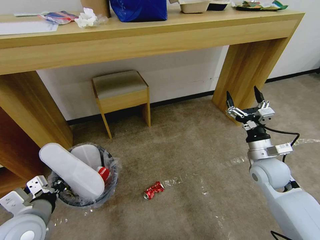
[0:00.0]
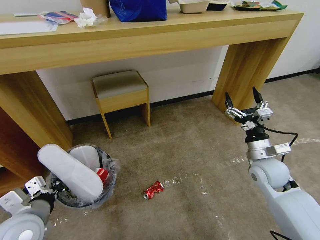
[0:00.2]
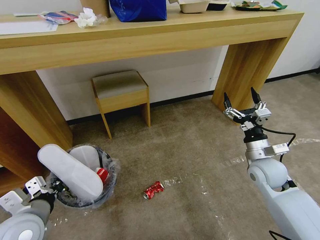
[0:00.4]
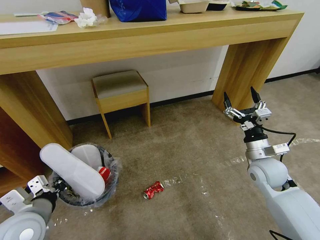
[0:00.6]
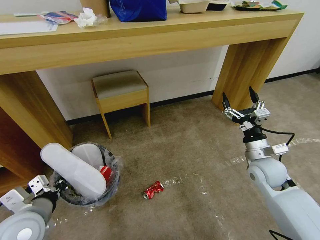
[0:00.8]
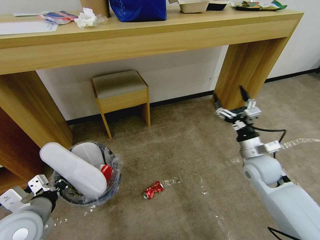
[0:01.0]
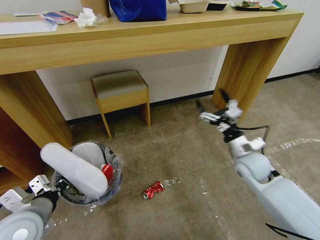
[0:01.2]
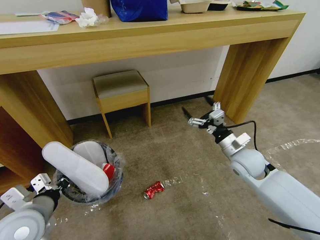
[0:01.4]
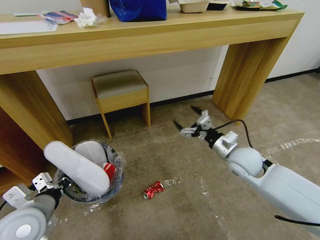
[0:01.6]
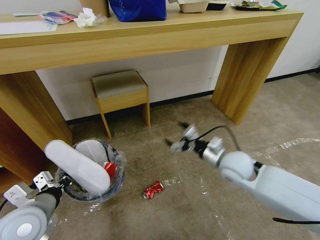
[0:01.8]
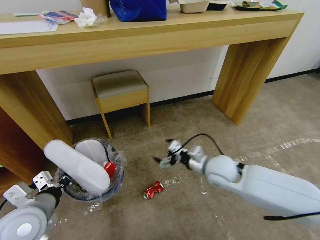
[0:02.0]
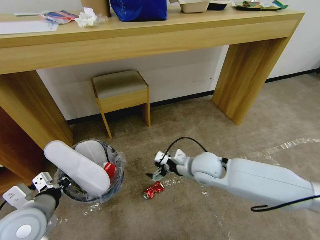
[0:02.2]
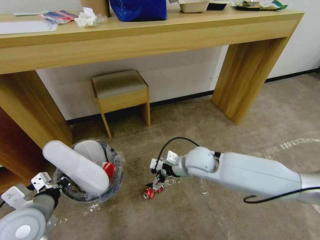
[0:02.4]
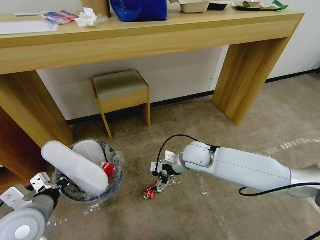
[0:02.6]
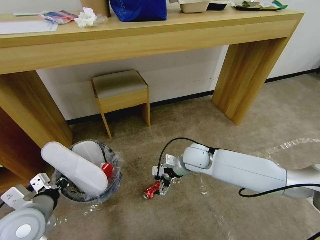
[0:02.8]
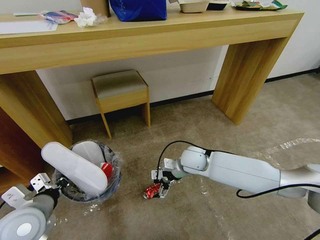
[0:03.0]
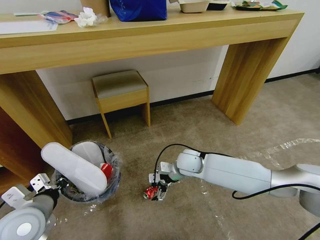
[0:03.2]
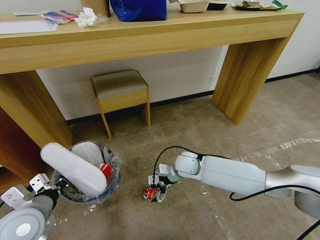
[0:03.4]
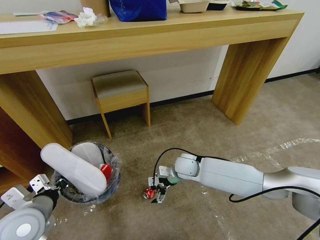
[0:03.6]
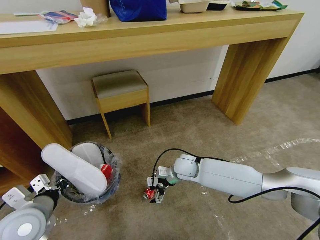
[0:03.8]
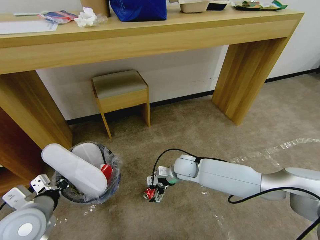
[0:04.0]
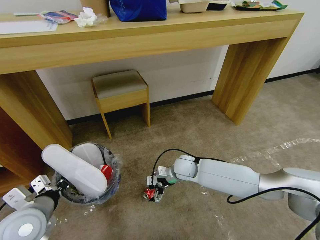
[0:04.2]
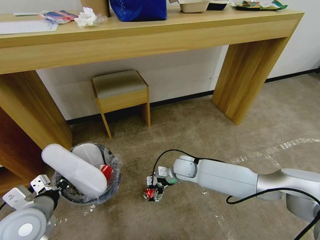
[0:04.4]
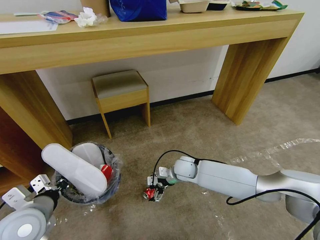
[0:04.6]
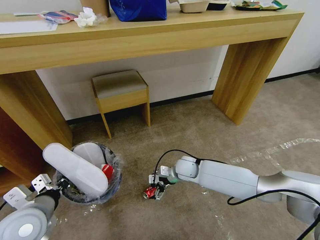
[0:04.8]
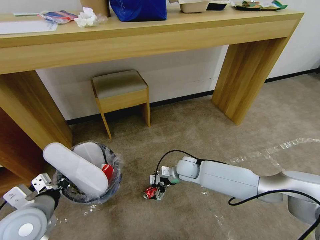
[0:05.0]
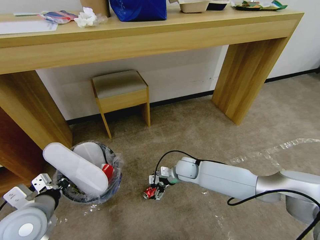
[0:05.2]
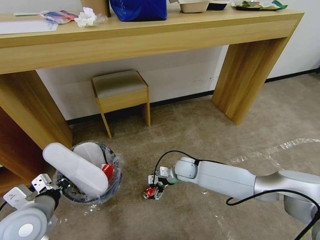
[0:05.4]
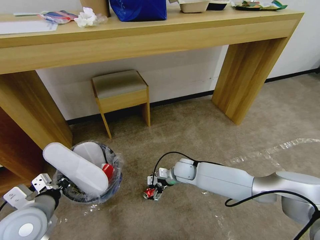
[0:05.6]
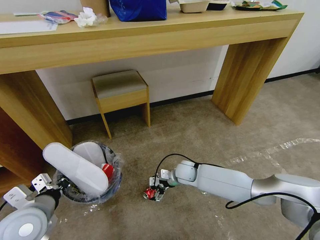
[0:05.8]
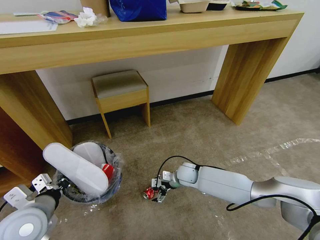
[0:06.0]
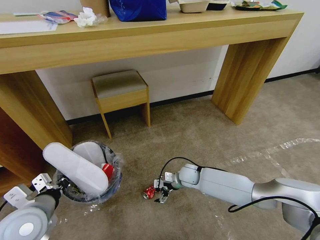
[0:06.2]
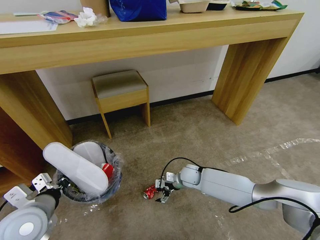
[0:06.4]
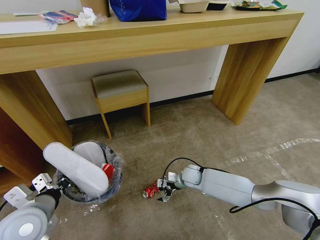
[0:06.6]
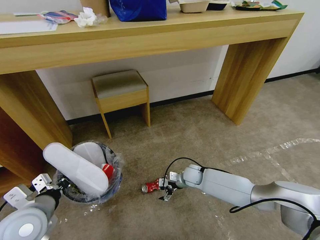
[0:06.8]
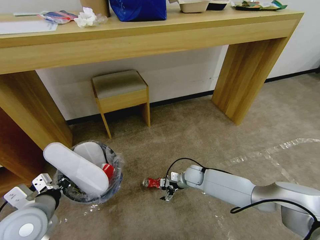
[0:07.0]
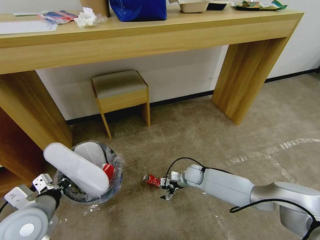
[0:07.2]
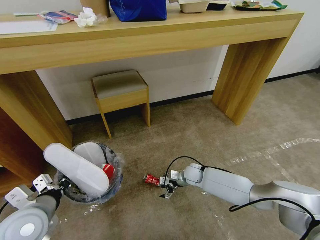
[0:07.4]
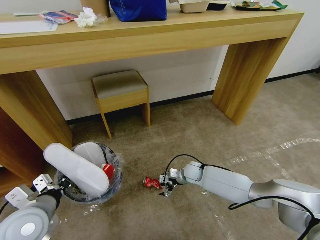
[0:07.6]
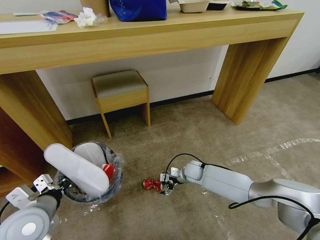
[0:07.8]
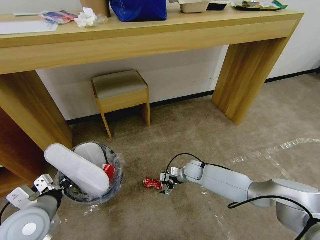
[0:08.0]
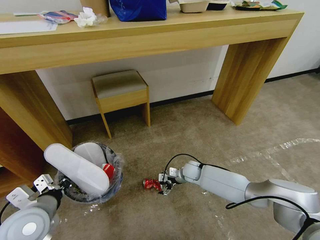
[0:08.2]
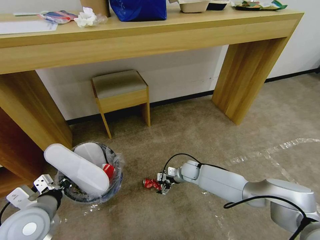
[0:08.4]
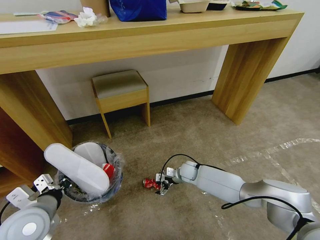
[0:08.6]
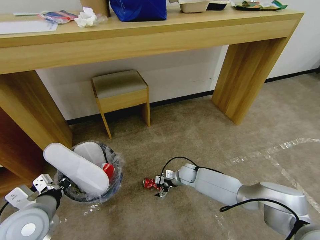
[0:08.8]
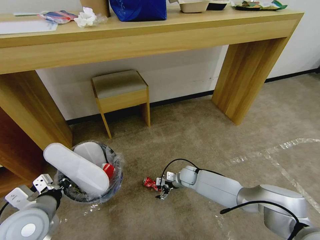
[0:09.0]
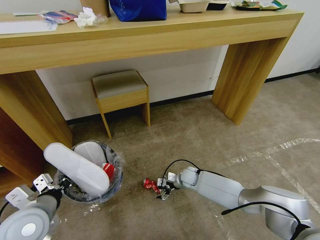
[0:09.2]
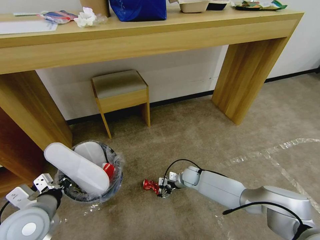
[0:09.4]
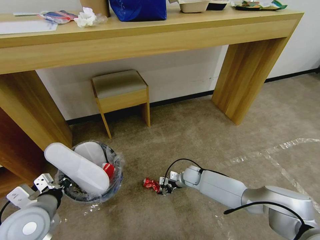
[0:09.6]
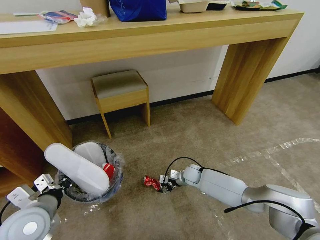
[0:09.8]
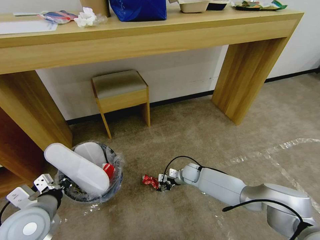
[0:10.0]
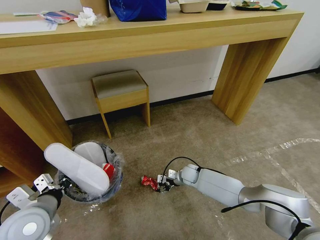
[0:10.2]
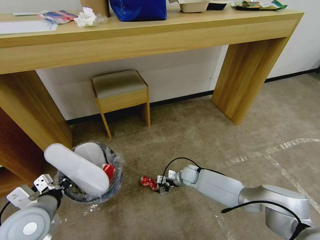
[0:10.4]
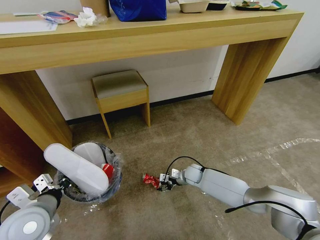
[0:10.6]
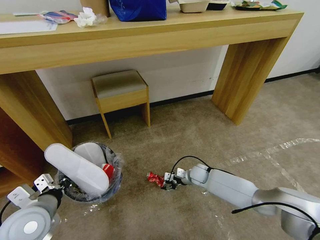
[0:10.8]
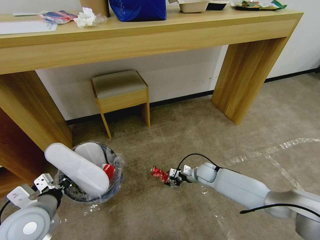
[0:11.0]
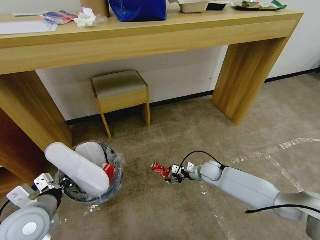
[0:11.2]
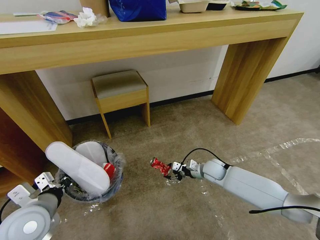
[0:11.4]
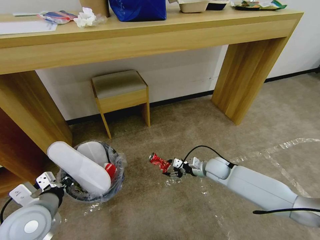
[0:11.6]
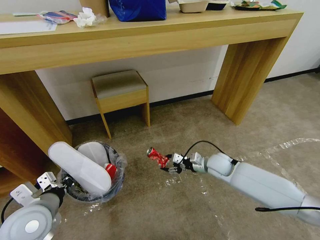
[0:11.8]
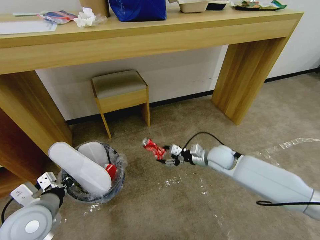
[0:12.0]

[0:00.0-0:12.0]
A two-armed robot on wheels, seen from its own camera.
Task of the whole recording: Pick up the trash bin and place the garbage on the floor into it.
0:00.0 to 0:01.6: The right gripper is displaced to the left by some 5 cm.
0:01.6 to 0:03.0: The right gripper goes roughly 15 cm to the left.
0:03.0 to 0:04.4: The right gripper is displaced downward by approximately 5 cm.
0:04.4 to 0:06.0: The right gripper goes approximately 5 cm downward.
0:06.0 to 0:07.6: The right gripper changes place by some 5 cm.
0:07.6 to 0:09.0: The grippers stay close to where they were, moving slightly.
0:09.0 to 0:10.4: The right gripper closes.
0:10.4 to 0:12.0: The right gripper travels upward and to the right by about 20 cm.

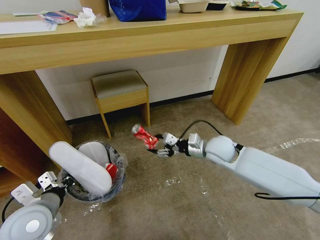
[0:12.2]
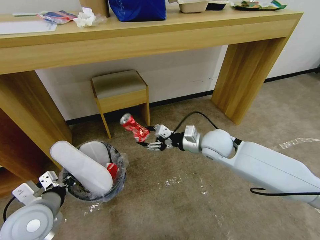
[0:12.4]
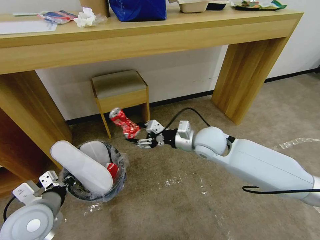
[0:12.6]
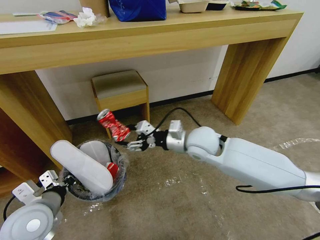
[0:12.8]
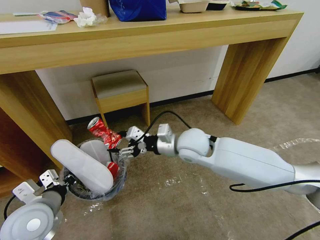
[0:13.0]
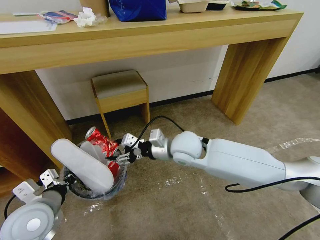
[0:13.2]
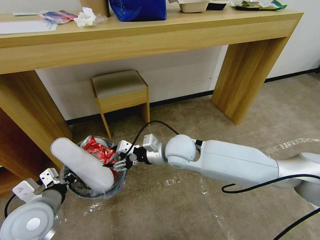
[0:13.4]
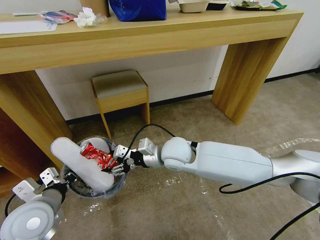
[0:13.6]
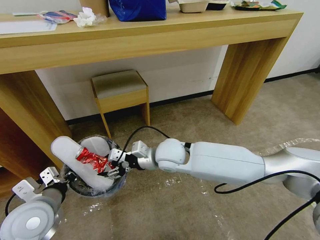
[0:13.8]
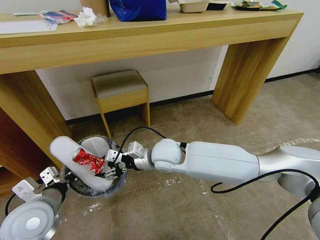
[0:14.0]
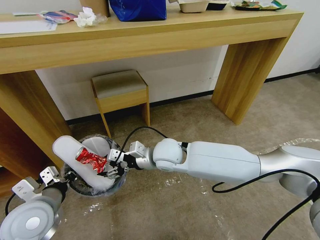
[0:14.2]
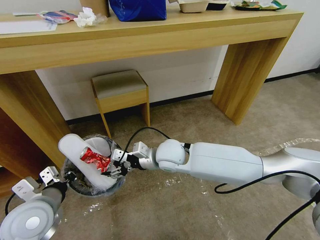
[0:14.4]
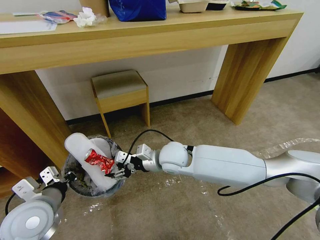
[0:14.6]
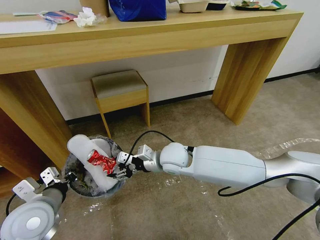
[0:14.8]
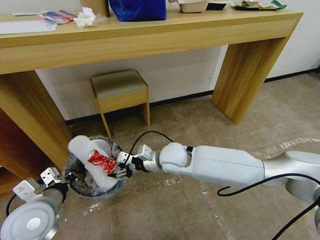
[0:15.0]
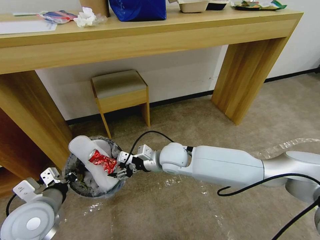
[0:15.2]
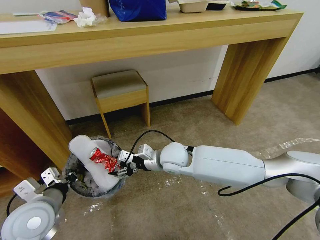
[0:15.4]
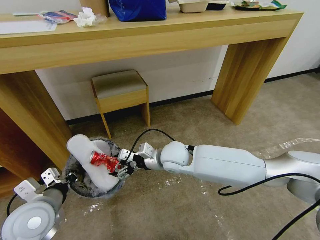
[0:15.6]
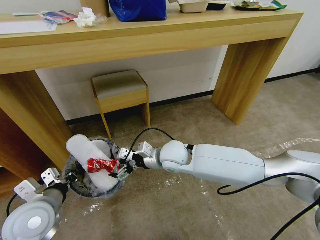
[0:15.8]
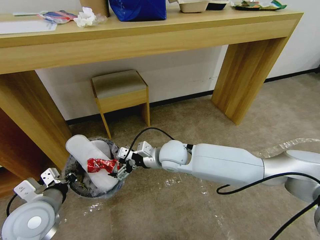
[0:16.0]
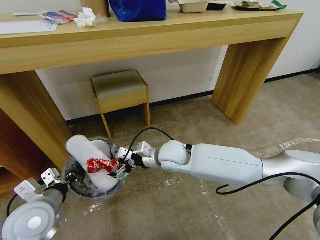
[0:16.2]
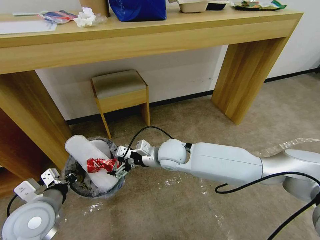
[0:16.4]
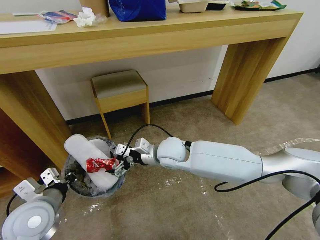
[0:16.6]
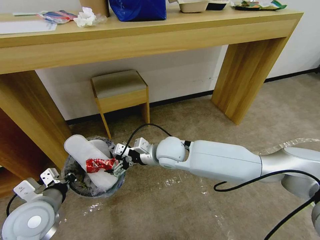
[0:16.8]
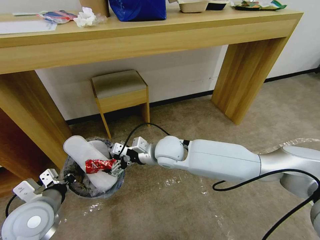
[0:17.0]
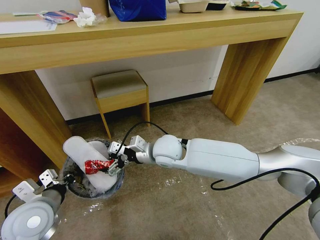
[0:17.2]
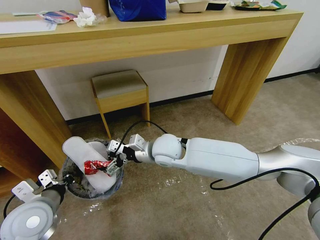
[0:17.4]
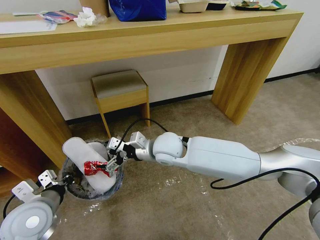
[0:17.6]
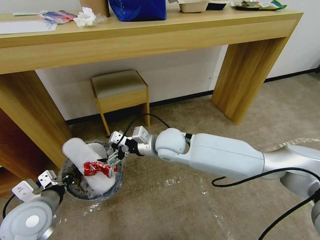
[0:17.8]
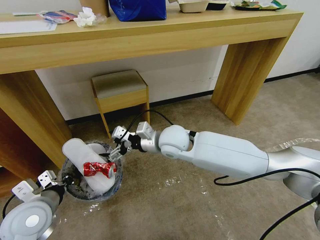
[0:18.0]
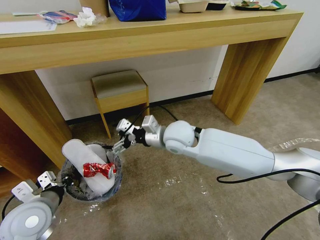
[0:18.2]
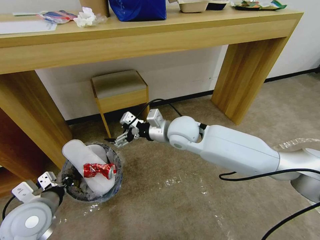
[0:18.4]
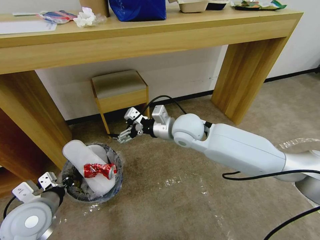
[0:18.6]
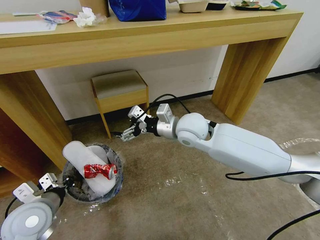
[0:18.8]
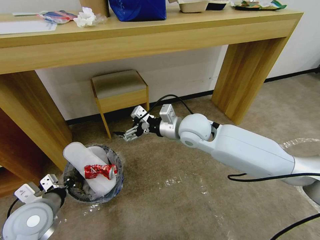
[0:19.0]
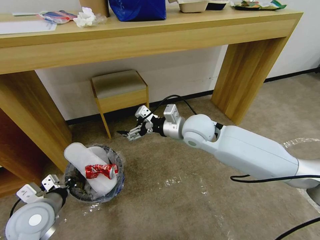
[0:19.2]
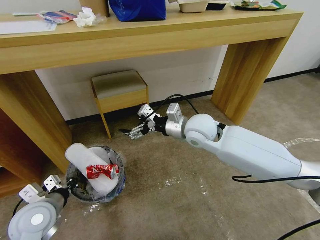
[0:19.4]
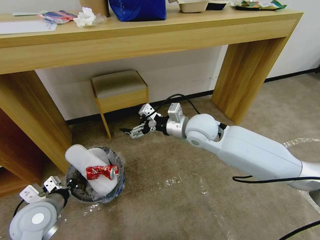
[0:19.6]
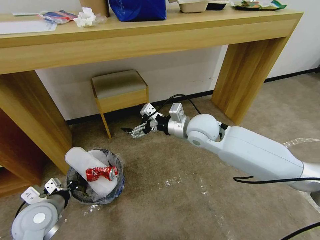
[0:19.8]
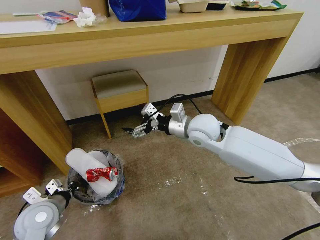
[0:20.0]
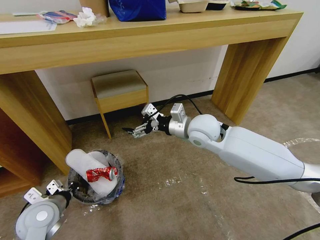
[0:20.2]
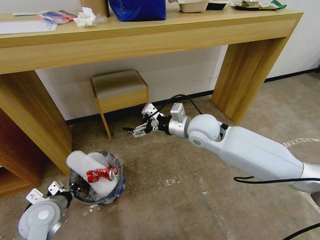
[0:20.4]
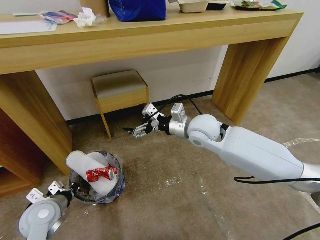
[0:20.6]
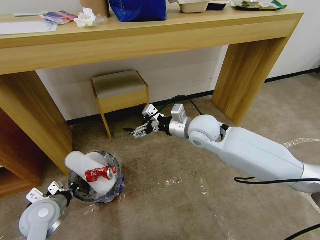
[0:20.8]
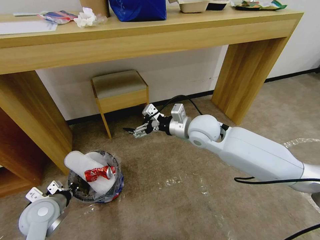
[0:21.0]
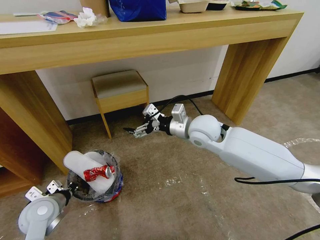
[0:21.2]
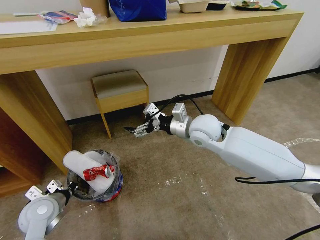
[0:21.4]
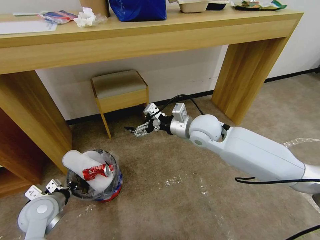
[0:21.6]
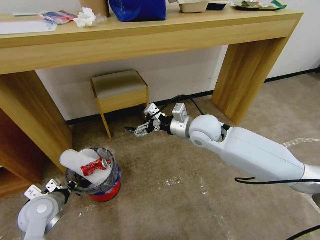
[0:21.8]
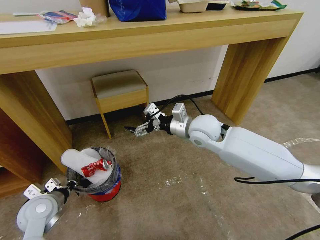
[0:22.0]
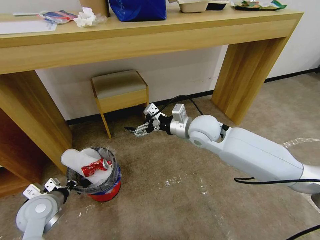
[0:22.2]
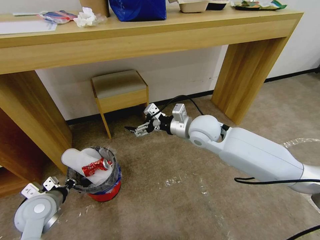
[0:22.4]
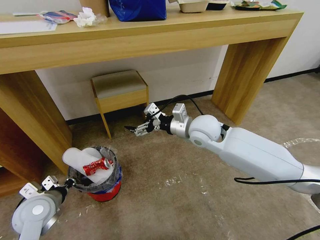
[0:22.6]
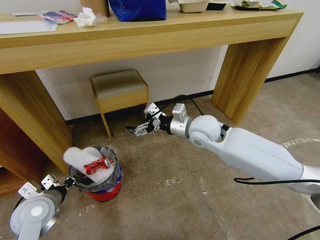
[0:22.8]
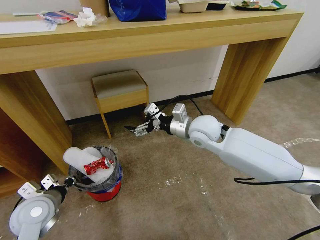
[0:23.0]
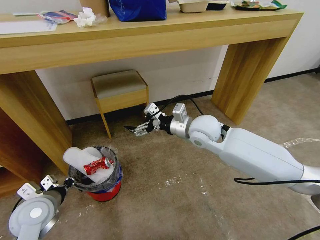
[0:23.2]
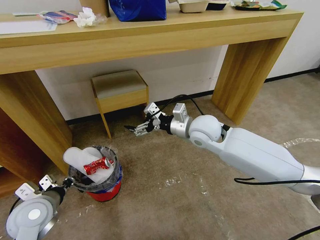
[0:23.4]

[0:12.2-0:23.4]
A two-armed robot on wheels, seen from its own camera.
Task of the whole recording: Pick up the trash bin and place the garbage on the floor into it.
0:12.2 to 0:13.8: The right gripper moves to the left, approximately 20 cm.
0:13.8 to 0:15.4: The grippers make only small movements.
0:15.4 to 0:17.0: The right gripper opens up.
0:17.0 to 0:18.6: The right gripper shifts approximately 10 cm upward and to the right.
0:18.6 to 0:20.2: The left gripper heads downward, covering roughly 5 cm.
0:20.2 to 0:23.4: The grippers move only a little.
